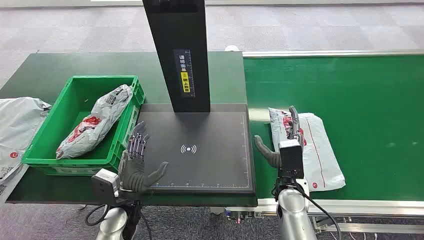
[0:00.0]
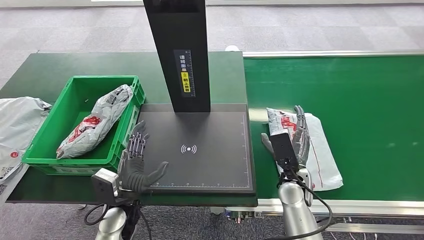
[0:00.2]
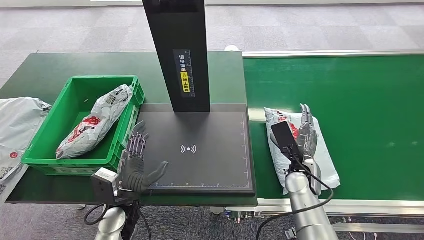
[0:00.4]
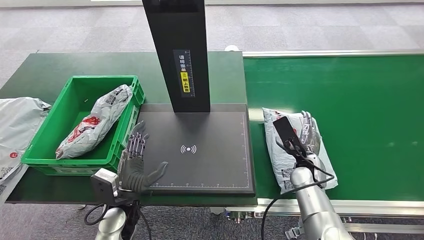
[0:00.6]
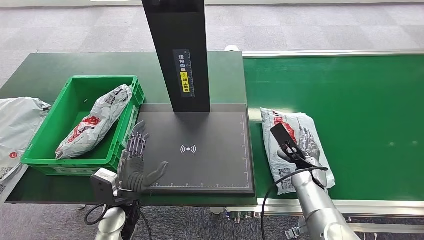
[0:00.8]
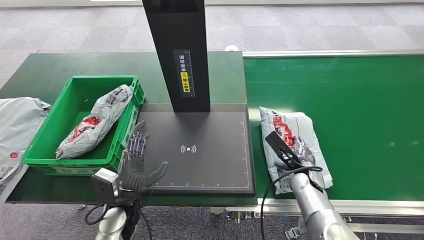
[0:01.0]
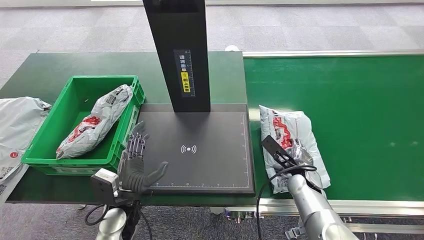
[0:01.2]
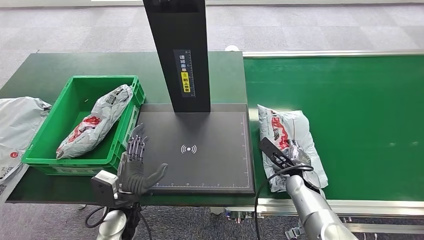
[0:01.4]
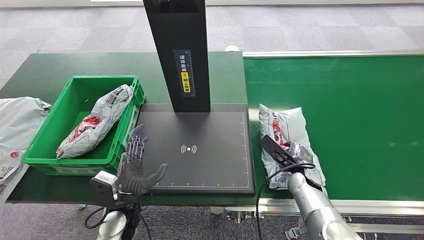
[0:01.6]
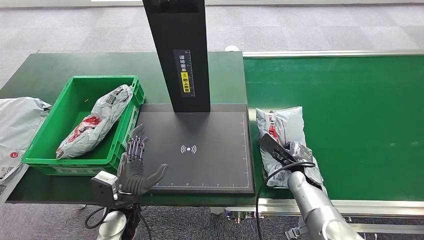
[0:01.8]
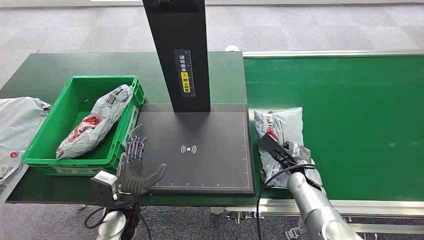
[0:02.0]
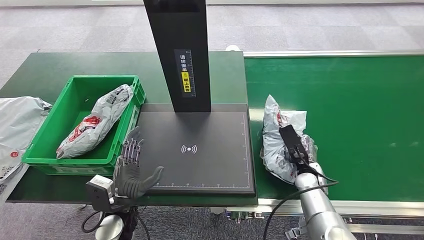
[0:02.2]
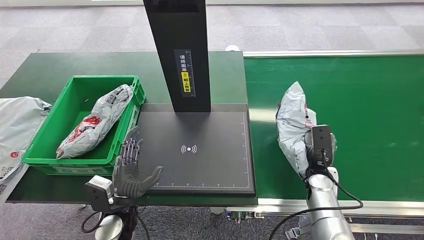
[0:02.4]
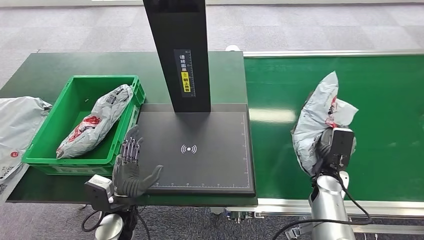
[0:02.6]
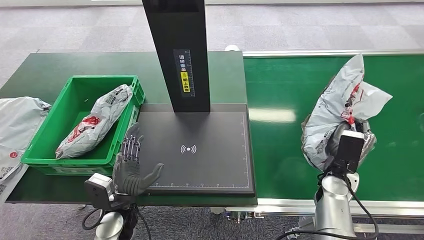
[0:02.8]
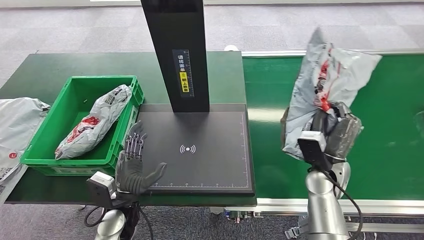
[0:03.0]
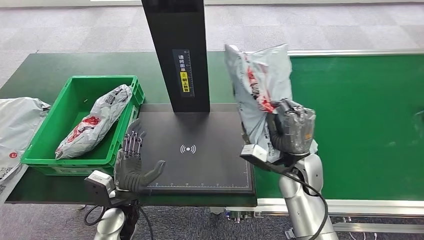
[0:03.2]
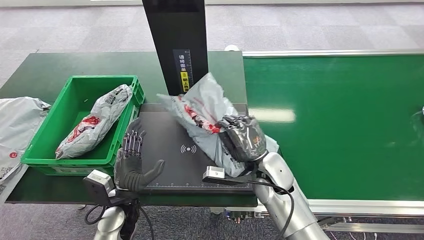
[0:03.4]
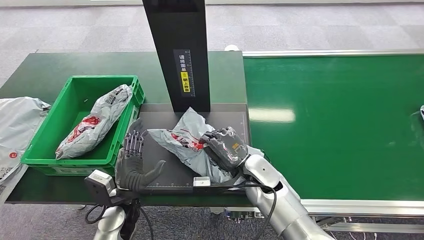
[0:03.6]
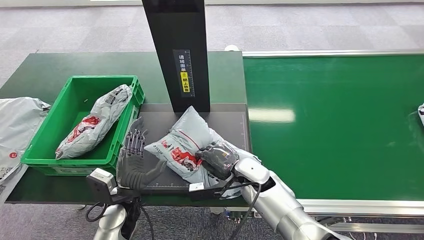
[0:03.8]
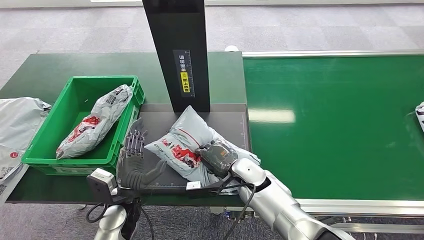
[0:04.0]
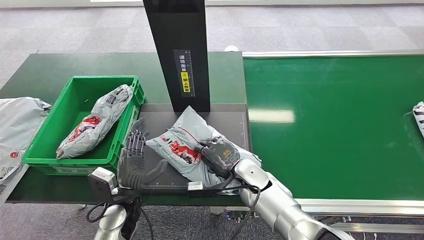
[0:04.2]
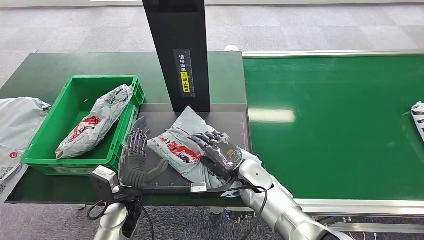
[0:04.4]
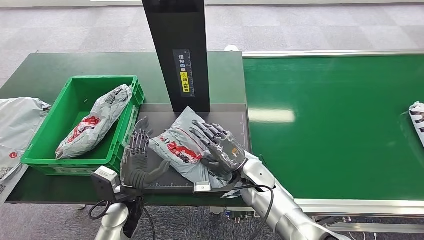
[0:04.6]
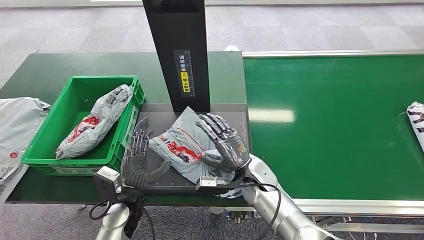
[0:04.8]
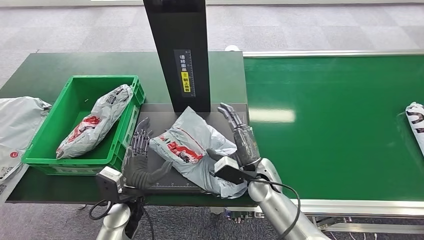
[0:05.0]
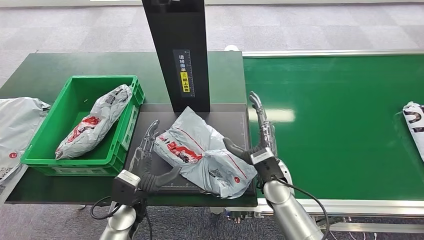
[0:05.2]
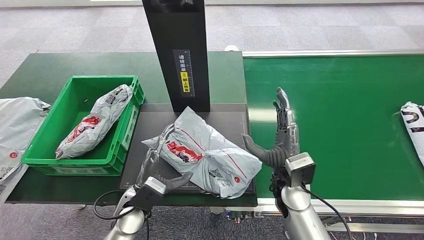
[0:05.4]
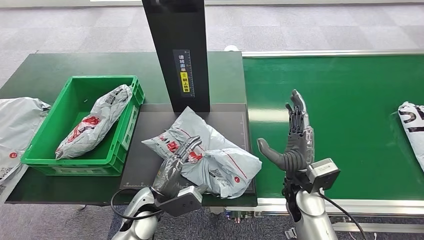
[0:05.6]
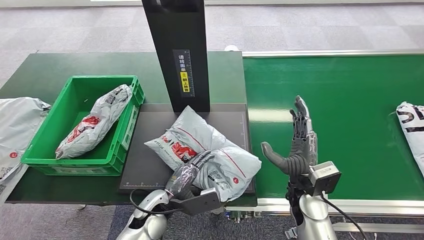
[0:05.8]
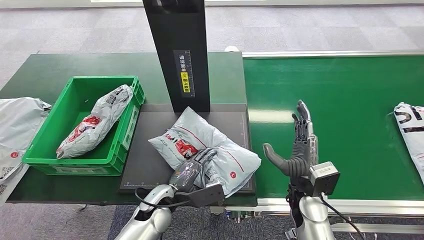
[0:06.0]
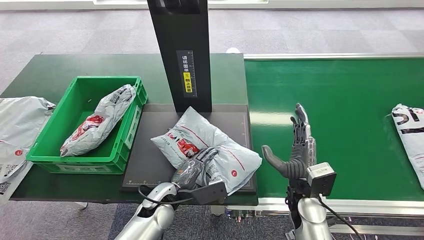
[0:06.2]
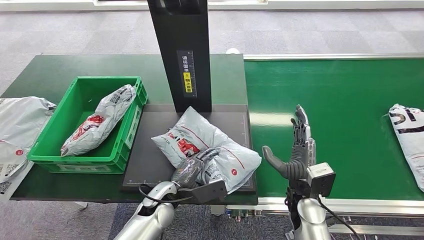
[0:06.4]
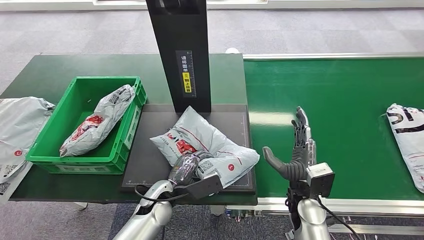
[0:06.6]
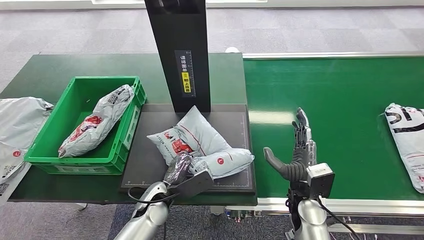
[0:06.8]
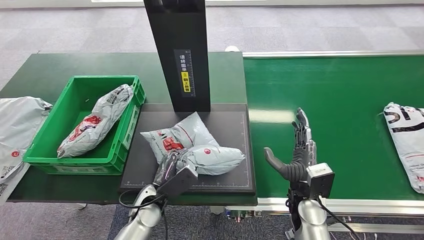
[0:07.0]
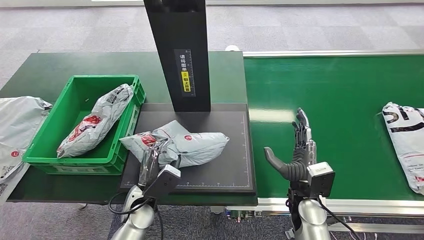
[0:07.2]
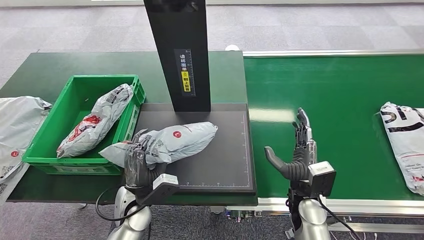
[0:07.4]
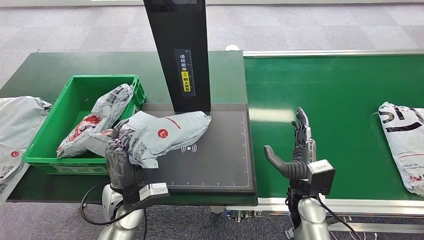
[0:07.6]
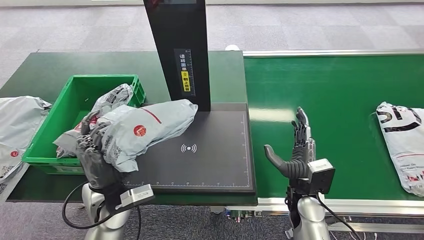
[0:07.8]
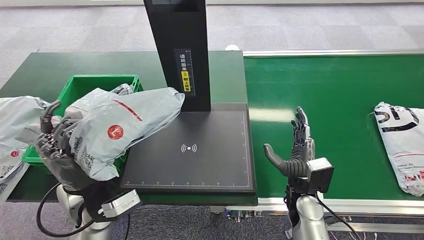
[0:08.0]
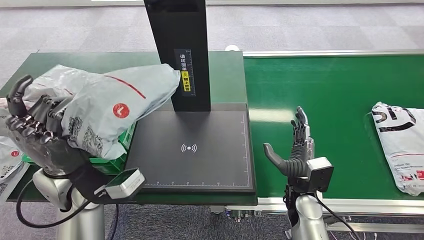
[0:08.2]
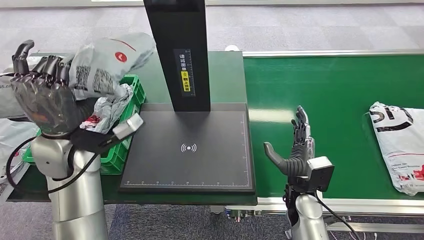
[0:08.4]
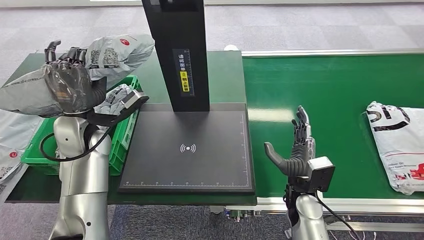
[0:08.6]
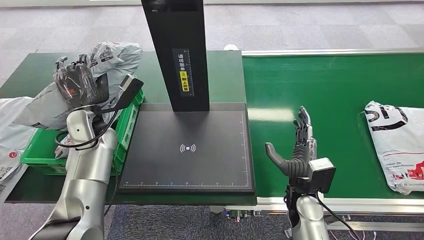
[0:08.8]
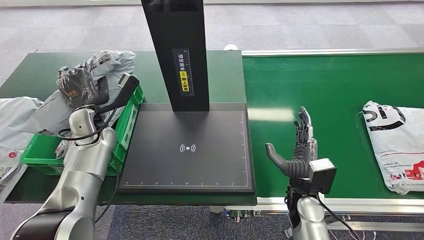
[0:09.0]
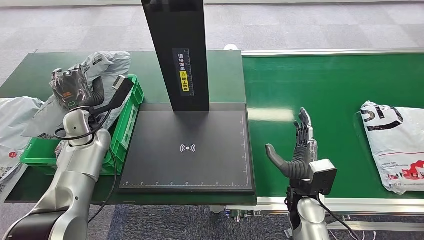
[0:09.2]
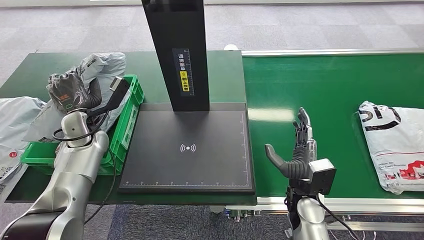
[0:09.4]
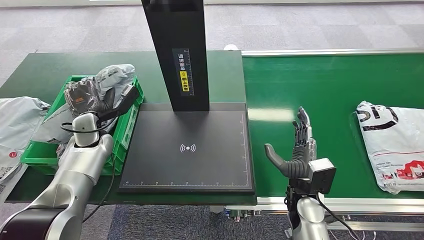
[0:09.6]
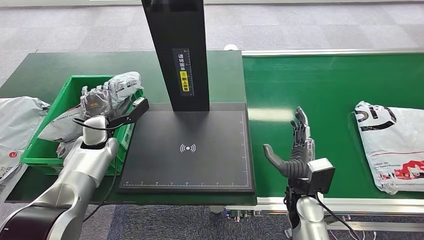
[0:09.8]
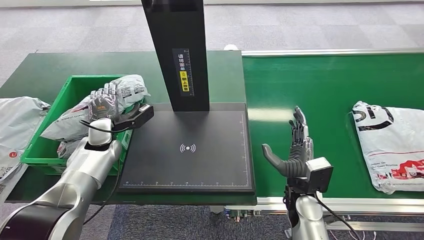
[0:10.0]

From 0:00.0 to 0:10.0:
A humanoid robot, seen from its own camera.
Step, from 0:00.0 to 0:02.8: Pick up the package from the conveyor belt.
Step, from 0:03.0 to 0:05.0: Place the package onto the inbound machine.
Step, from 0:05.2 to 0:08.0: Pick up the package from the inbound machine.
From 0:01.4 to 0:02.8: The right hand heads upward, covering roughly 5 cm.
From 0:04.2 to 0:05.8: The right hand shifts about 10 cm to the right and backward; the left hand shifts some 5 cm to the right.

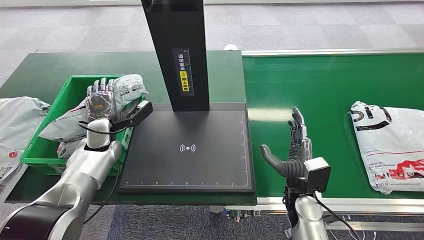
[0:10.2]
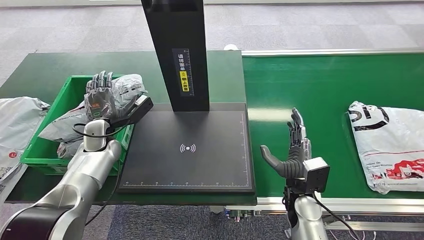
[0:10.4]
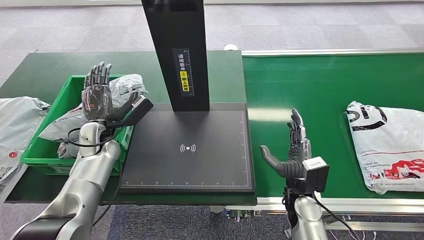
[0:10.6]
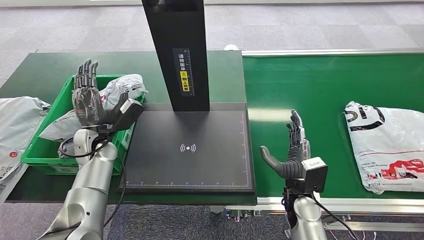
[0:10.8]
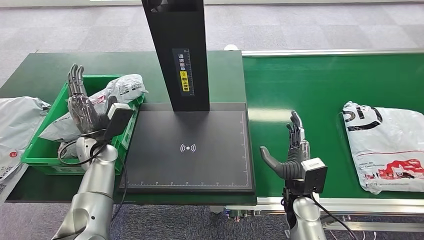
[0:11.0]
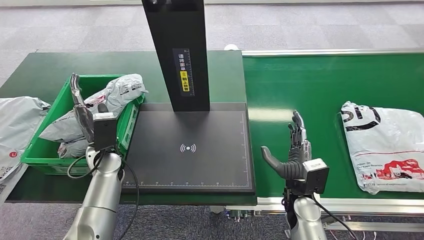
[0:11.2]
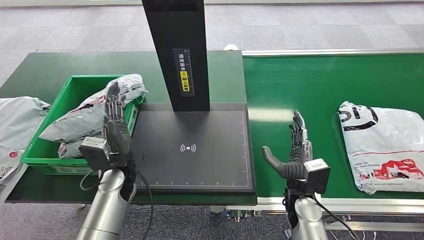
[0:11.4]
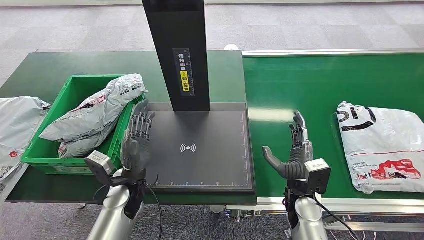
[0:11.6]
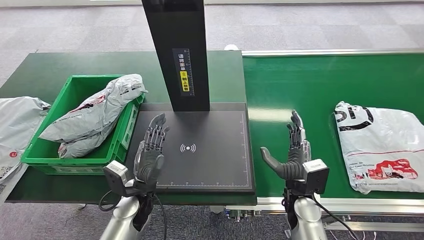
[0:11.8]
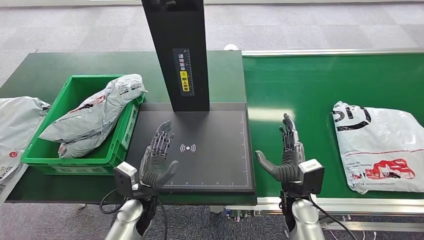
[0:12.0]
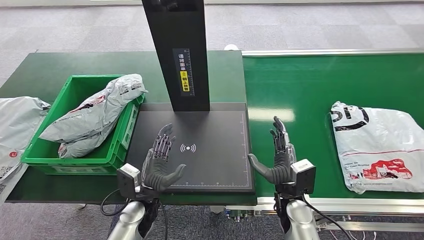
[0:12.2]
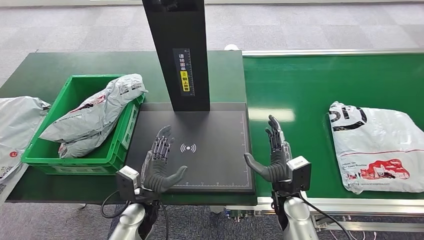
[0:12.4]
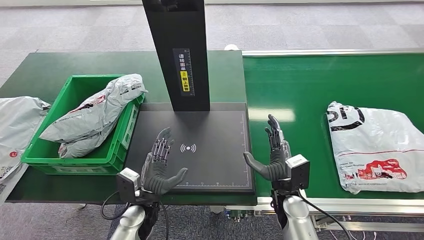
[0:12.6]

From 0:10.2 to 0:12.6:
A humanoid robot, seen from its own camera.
Step, from 0:10.2 to 0:12.6: Place the package into the parcel locker.
From 0:10.2 to 0:11.4: The left hand is displaced to the right and backward by about 15 cm.
From 0:11.4 to 0:12.6: The left hand is displaced backward, downward and to the right by approximately 15 cm.

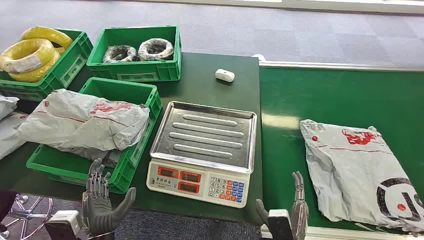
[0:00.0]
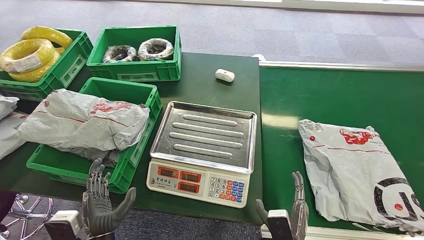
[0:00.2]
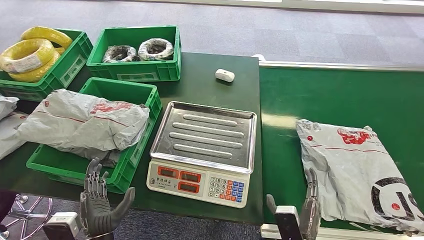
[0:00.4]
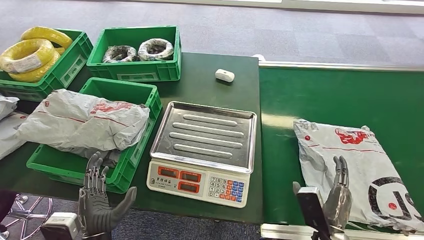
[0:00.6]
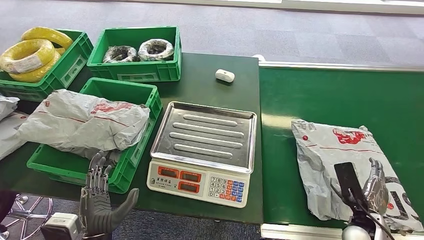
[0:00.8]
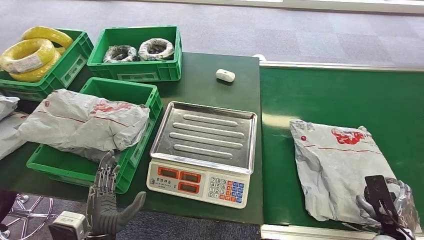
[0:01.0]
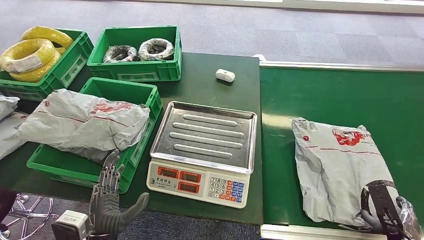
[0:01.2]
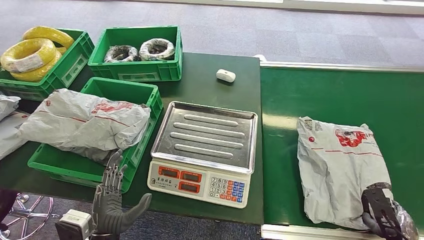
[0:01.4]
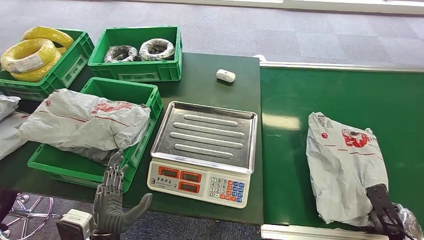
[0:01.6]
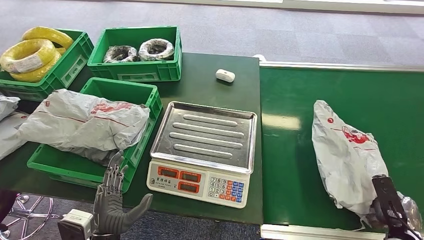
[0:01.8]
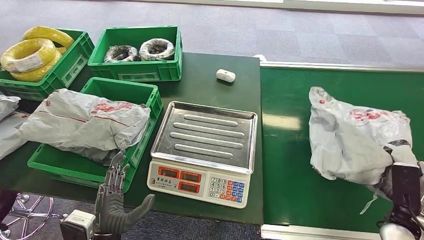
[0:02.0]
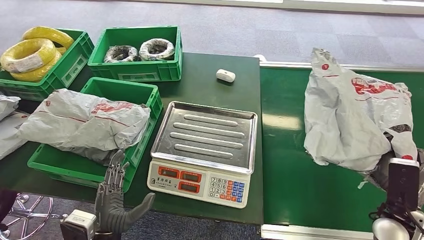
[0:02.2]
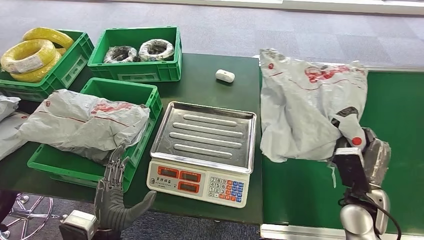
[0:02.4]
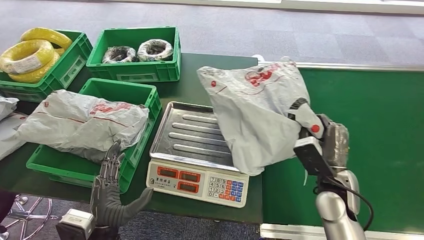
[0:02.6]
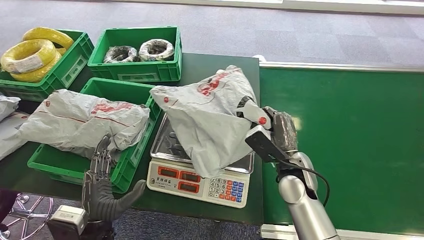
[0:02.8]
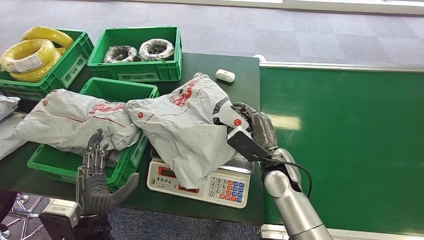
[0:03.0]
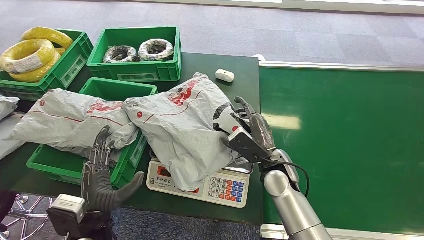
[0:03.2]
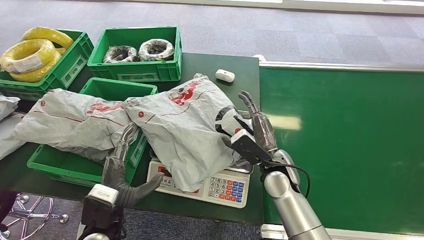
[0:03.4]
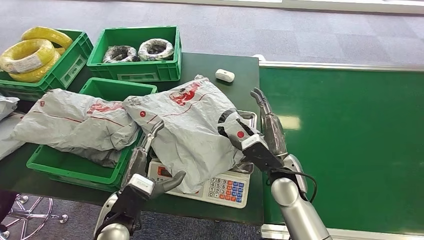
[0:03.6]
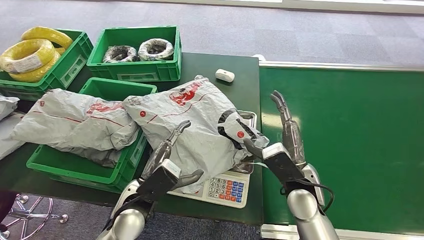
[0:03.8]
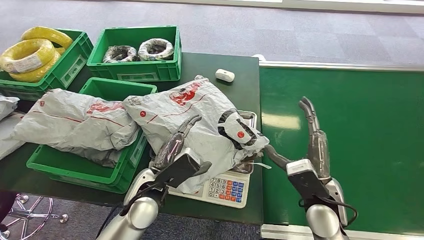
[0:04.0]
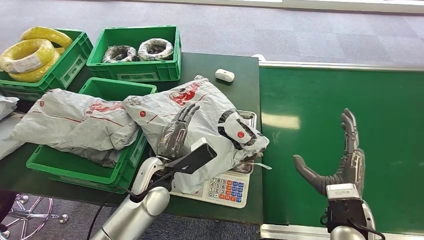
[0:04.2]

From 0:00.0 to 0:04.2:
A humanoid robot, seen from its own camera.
Step, from 0:00.0 to 0:02.0: Pick up the package from the conveyor belt.
Step, from 0:02.2 to 0:03.6: Place the package onto the inbound machine.
